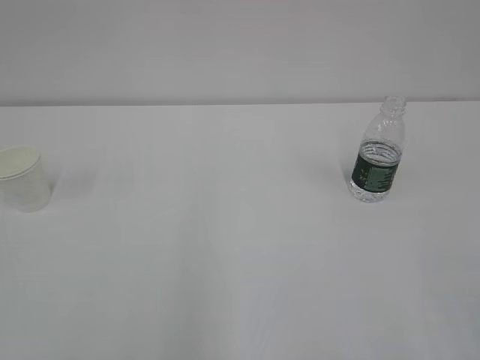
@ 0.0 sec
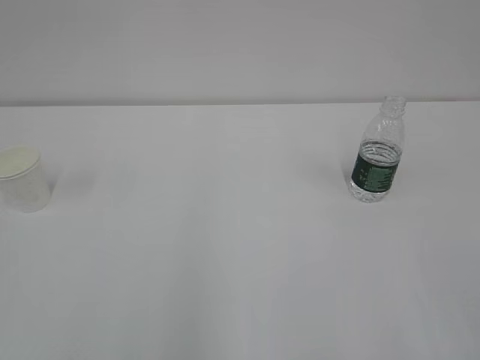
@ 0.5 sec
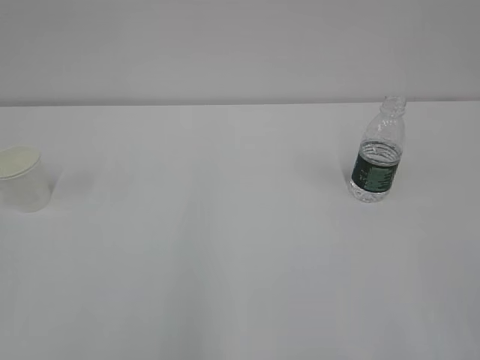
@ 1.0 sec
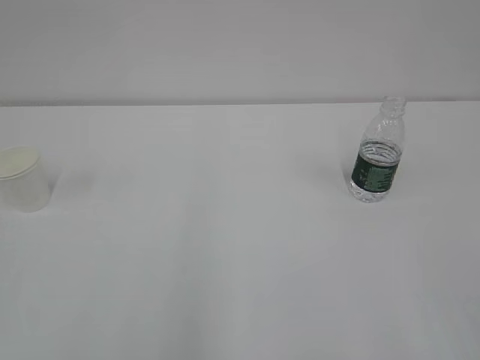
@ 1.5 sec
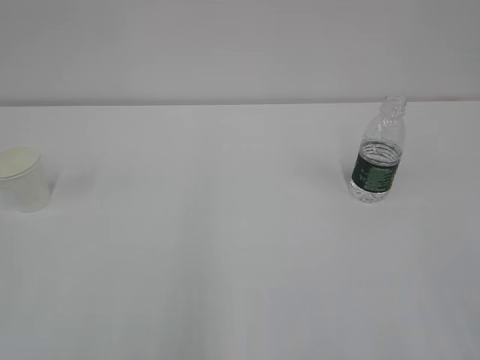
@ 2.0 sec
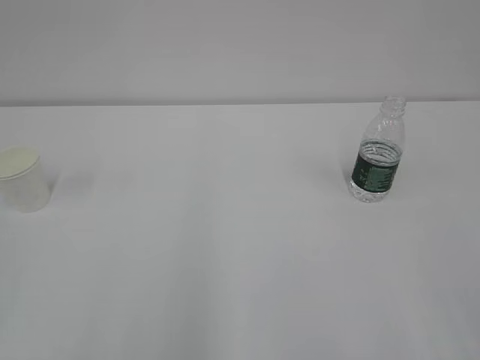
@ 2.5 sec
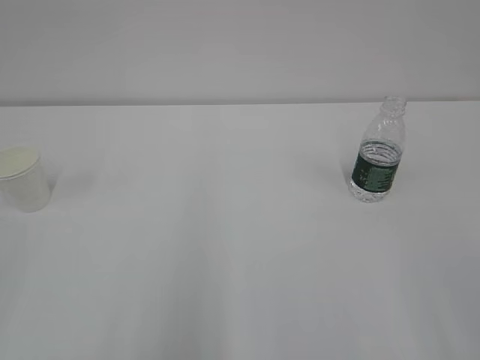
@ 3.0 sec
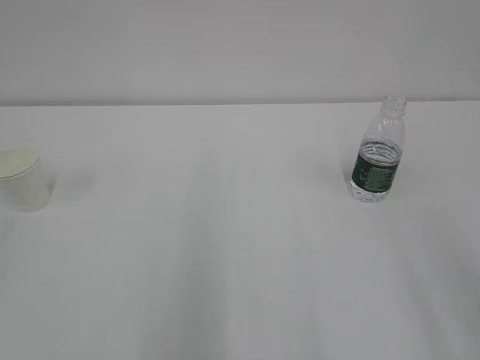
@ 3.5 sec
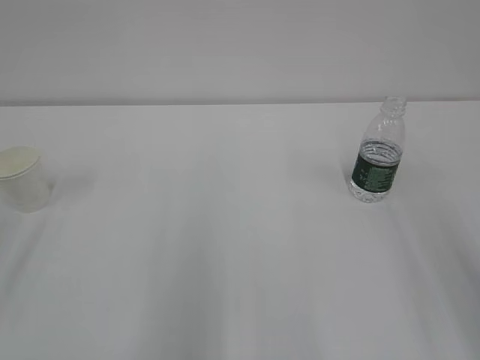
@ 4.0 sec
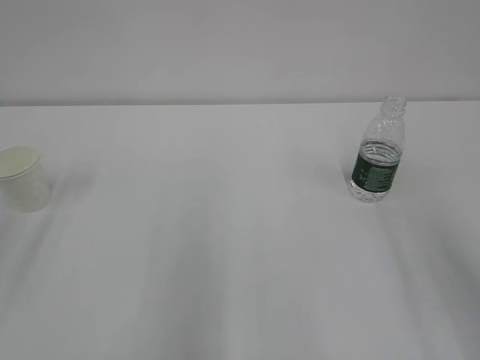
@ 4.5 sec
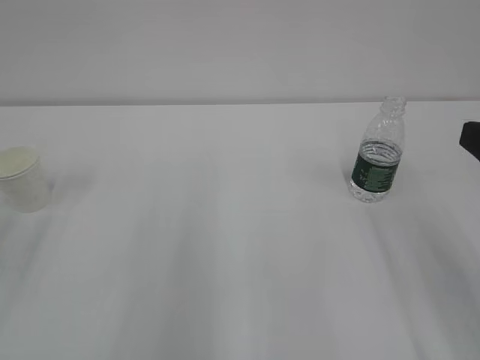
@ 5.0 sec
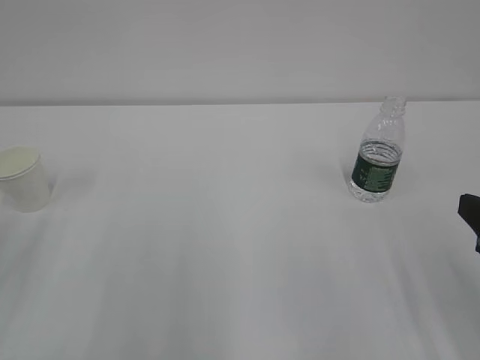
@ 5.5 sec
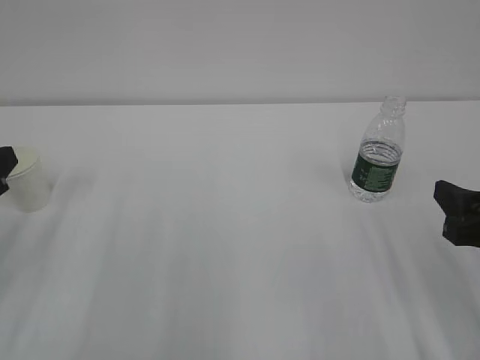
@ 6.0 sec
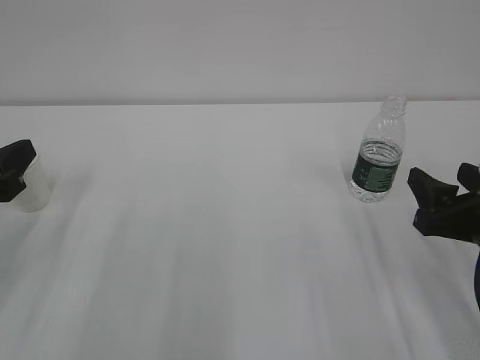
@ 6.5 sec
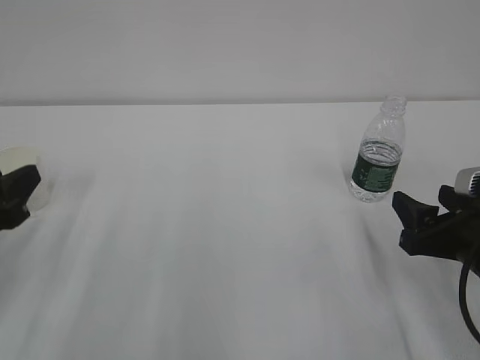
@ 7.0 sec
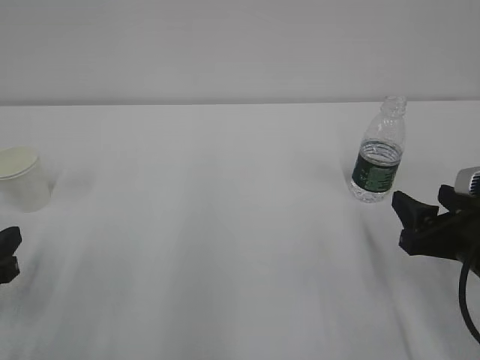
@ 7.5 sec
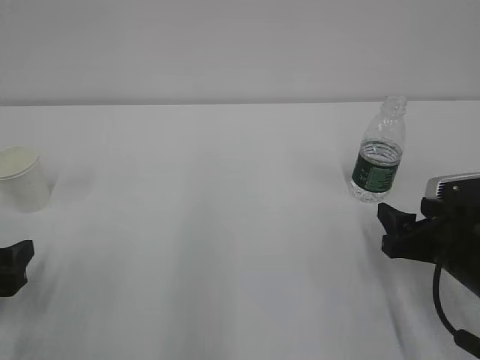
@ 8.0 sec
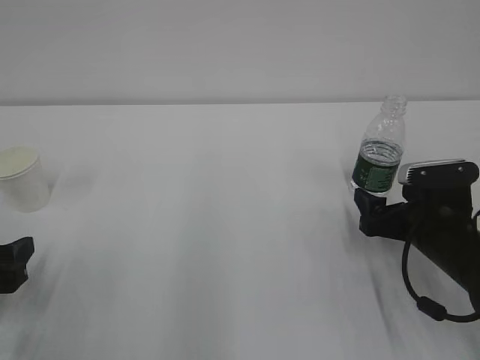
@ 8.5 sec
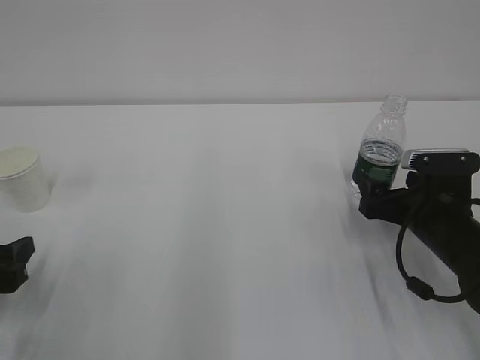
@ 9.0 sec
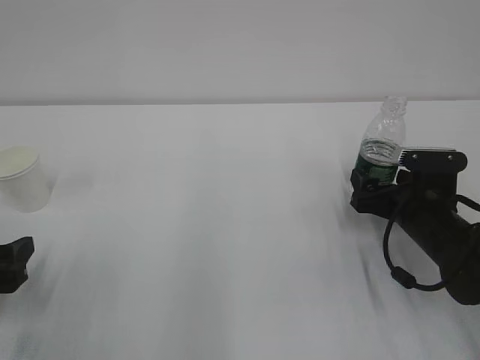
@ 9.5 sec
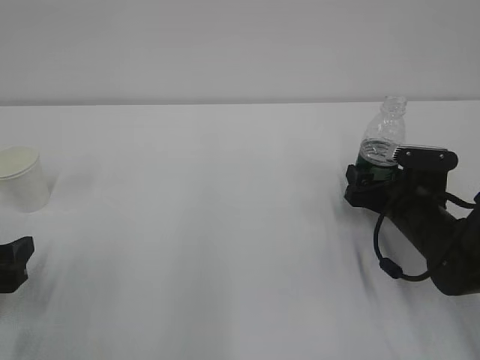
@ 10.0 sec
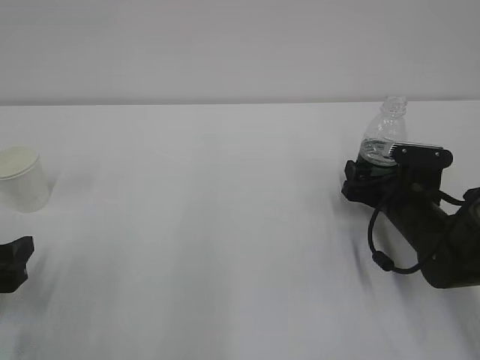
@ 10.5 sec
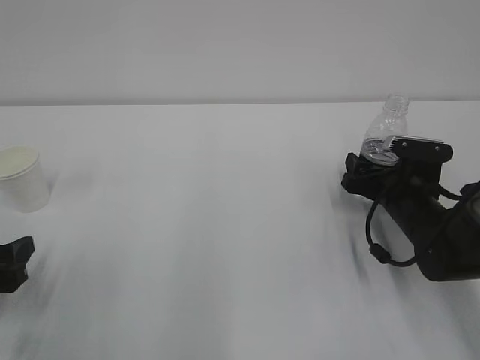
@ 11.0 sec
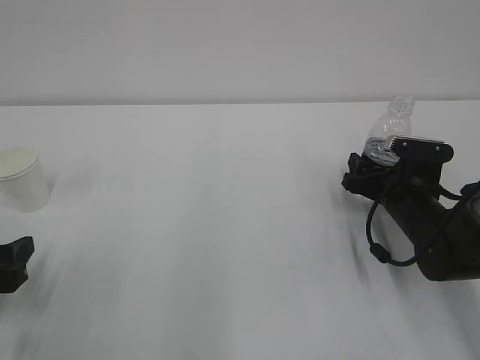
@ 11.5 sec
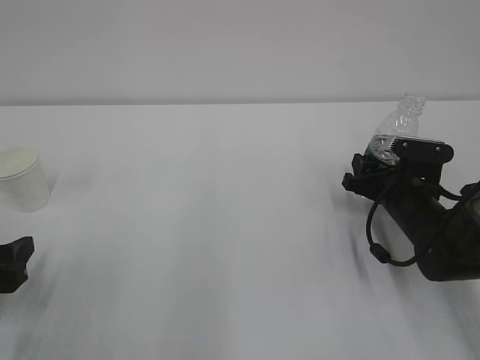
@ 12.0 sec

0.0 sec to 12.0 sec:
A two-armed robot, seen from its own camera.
4.0 sec to 6.0 sec: The right gripper shifts approximately 15 cm downward and forward.
6.0 sec to 8.0 sec: The right gripper moves downward and forward, approximately 10 cm, while the left gripper travels downward by roughly 10 cm, and opens.
8.0 sec to 10.0 sec: The right gripper moves forward, about 10 cm, and opens.
10.0 sec to 12.0 sec: The right gripper closes up.

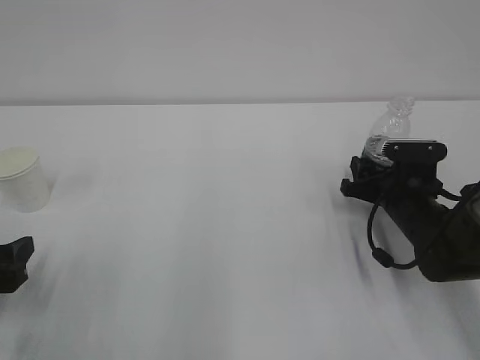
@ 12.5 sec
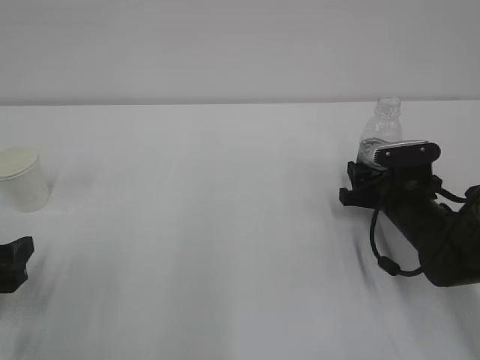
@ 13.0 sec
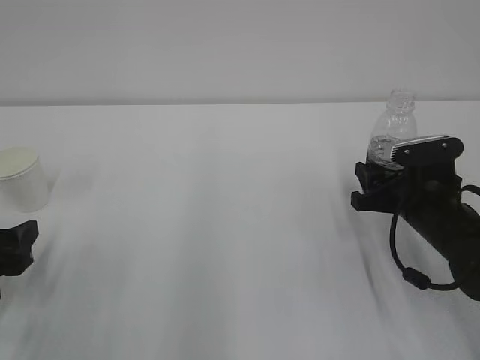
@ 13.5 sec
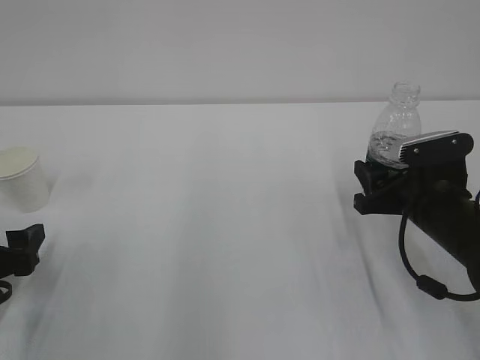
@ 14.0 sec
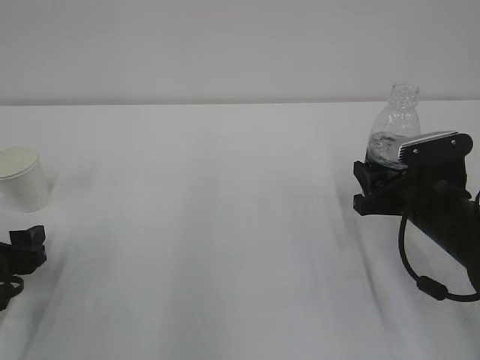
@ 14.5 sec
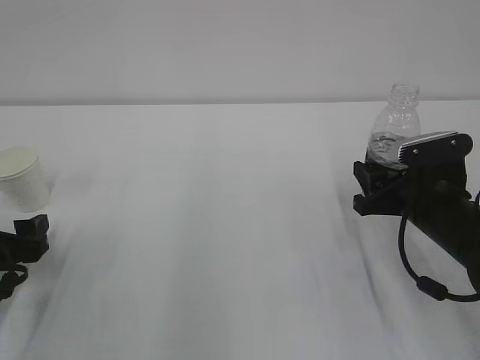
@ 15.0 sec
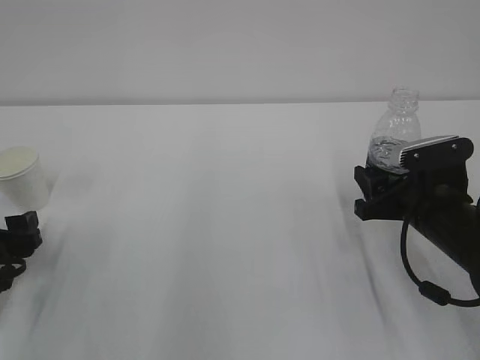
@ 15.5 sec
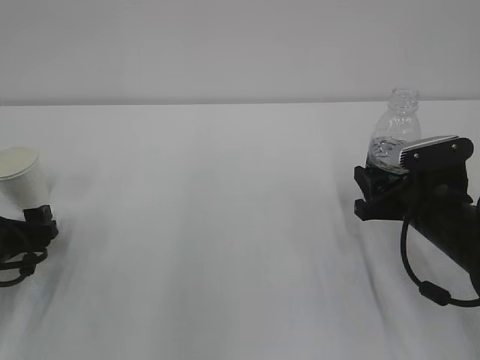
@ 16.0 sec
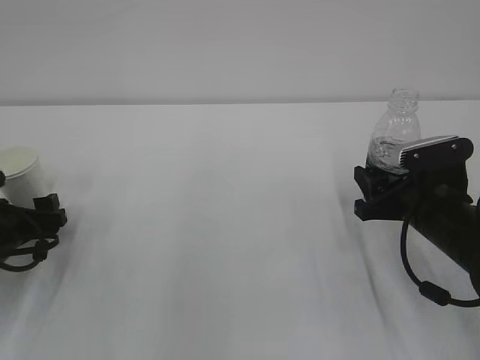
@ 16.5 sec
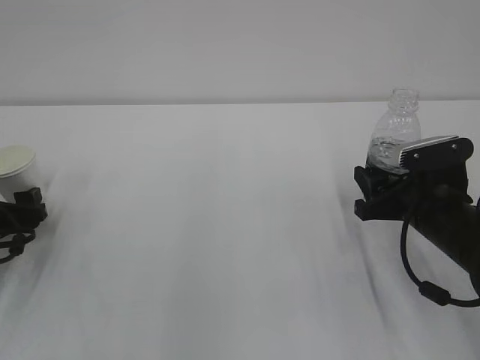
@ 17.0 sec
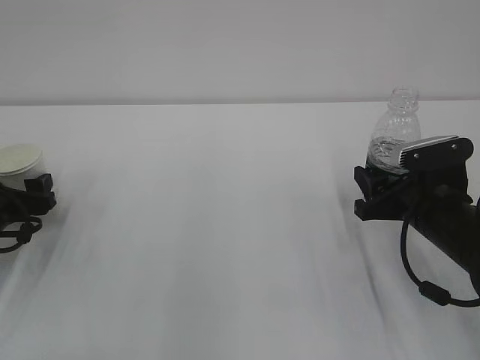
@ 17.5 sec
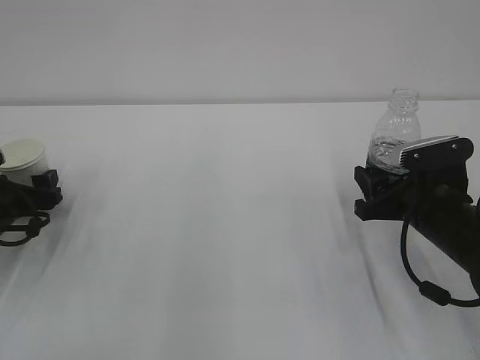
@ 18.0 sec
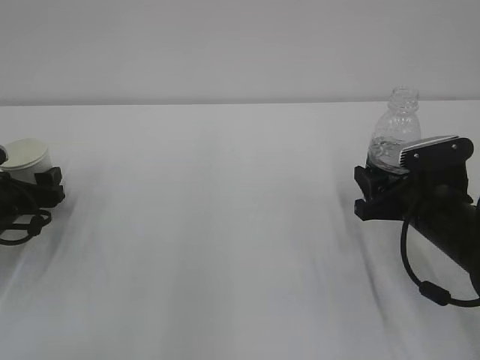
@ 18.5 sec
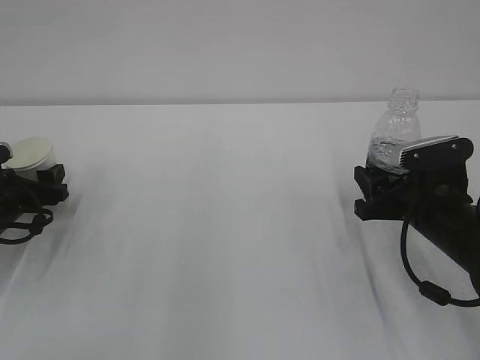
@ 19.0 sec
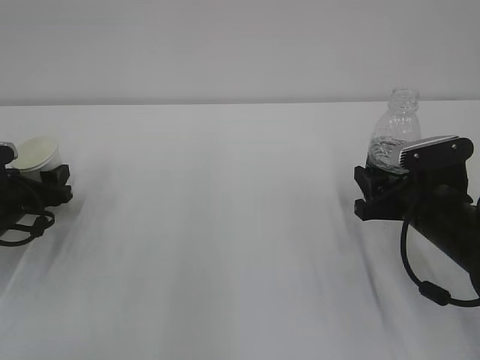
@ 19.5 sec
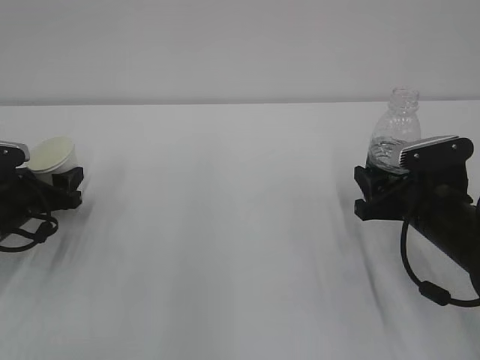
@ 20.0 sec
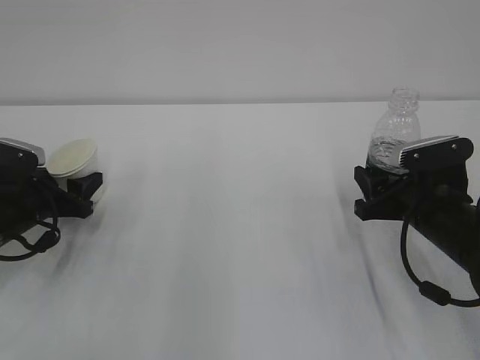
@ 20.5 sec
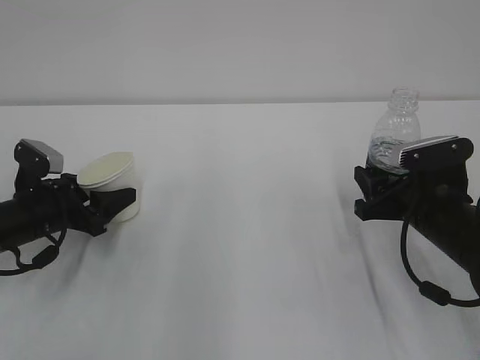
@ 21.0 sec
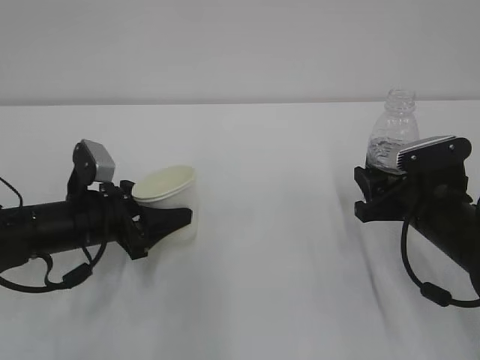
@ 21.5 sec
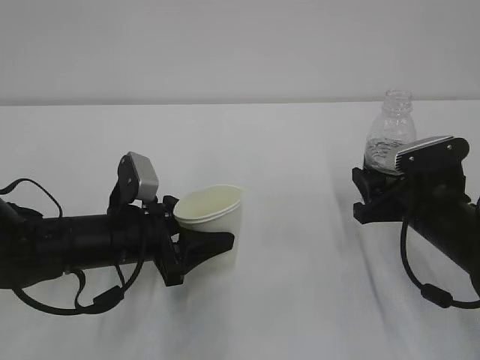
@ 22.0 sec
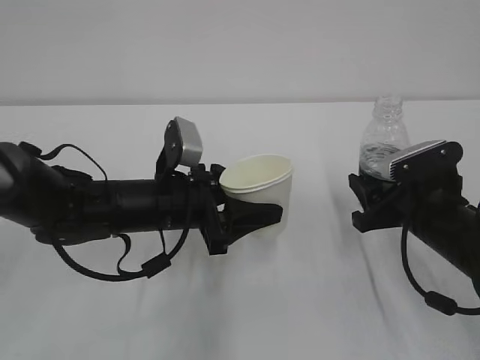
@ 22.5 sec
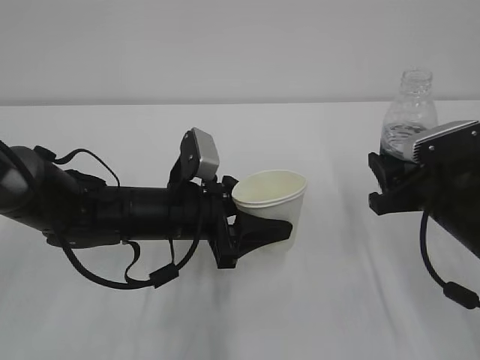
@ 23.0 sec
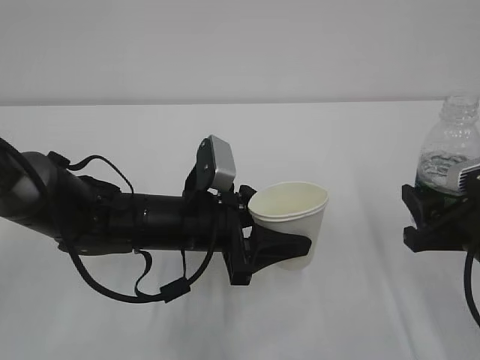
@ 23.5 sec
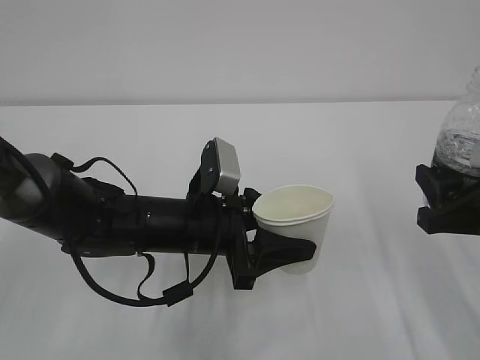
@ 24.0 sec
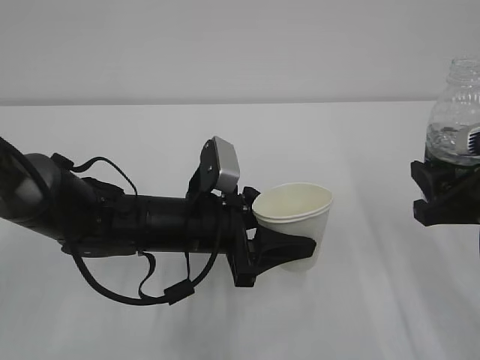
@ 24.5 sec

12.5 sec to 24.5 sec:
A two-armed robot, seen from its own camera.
12.5 sec to 14.5 sec: The right gripper shifts about 10 cm backward and upward.
14.5 sec to 16.5 sec: The left gripper moves forward, about 5 cm.
16.5 sec to 18.5 sec: The left gripper moves roughly 5 cm.
18.5 sec to 20.5 sec: The left gripper closes its fingers.
20.5 sec to 22.5 sec: The left gripper travels to the right by about 20 cm.
22.5 sec to 24.5 sec: The right gripper moves upward and backward, some 10 cm.

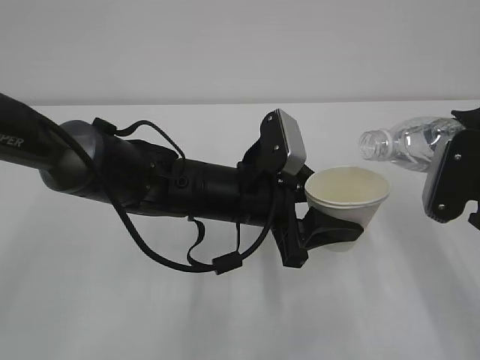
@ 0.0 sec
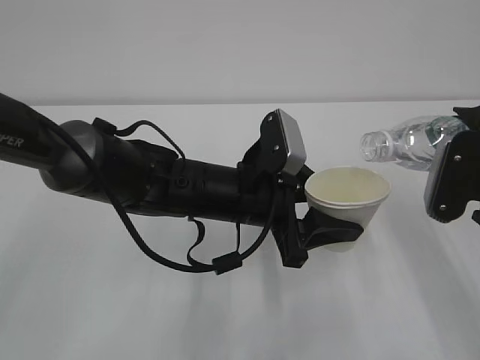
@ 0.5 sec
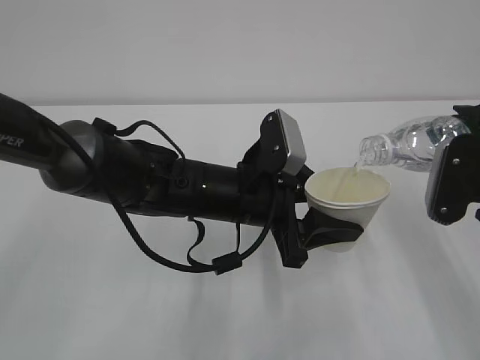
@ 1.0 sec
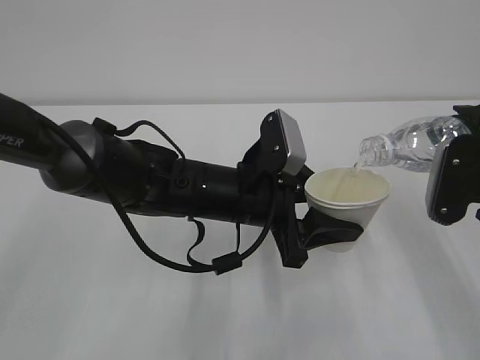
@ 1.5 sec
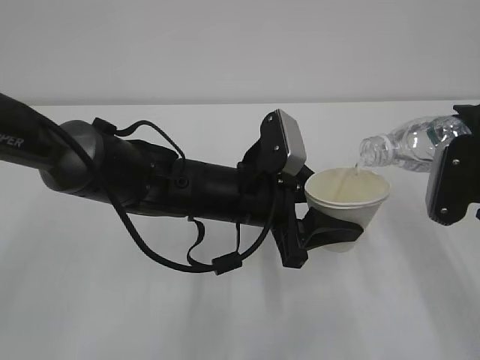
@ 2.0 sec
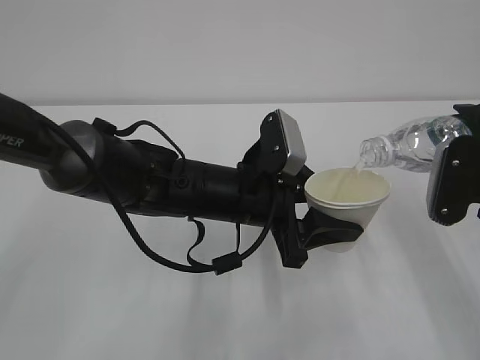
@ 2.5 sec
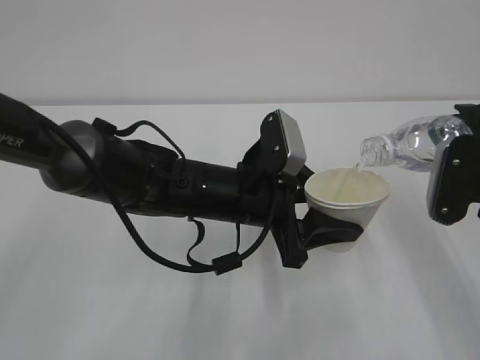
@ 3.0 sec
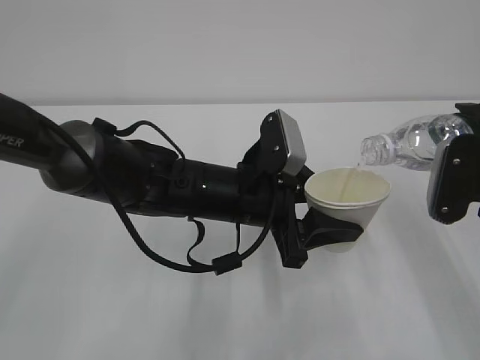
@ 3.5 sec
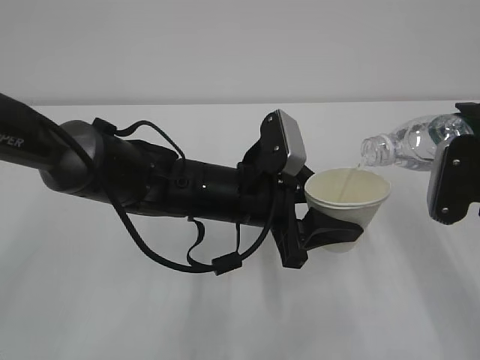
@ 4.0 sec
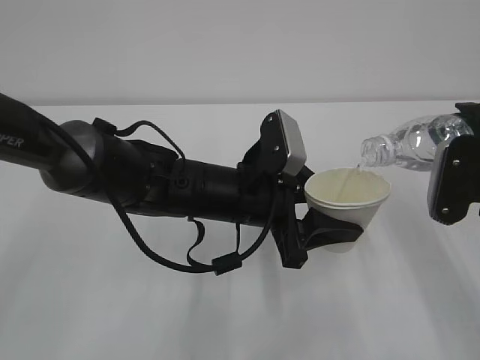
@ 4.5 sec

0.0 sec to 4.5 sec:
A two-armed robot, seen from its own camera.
0.0 sec to 2.0 sec: The grippers stay close to where they were, moving slightly.
2.0 sec to 4.5 sec: The two grippers keep their place.
